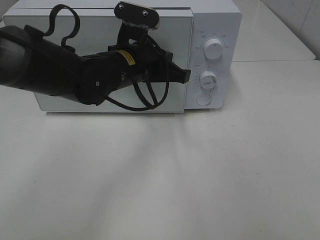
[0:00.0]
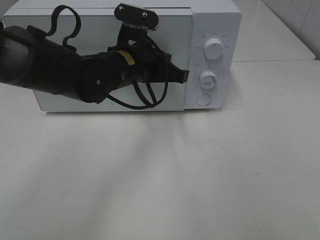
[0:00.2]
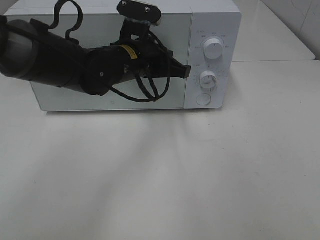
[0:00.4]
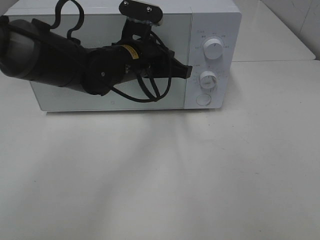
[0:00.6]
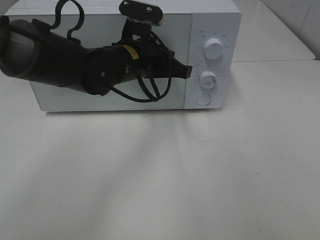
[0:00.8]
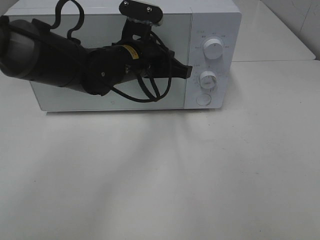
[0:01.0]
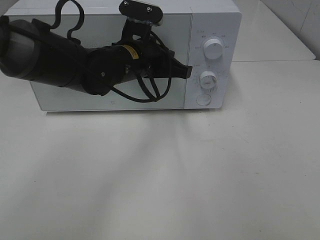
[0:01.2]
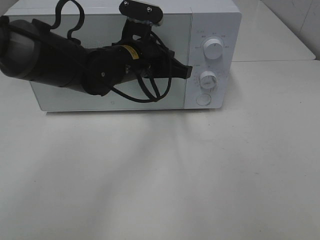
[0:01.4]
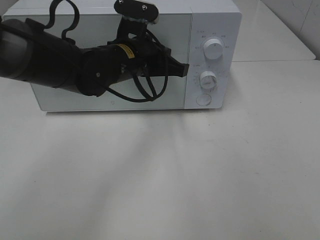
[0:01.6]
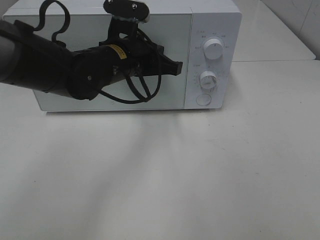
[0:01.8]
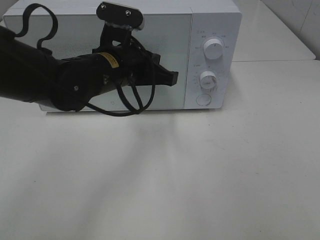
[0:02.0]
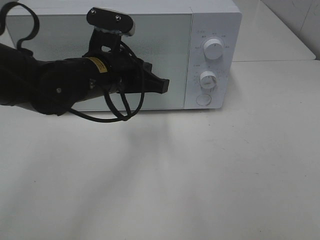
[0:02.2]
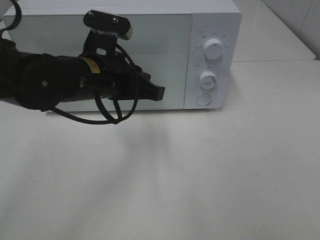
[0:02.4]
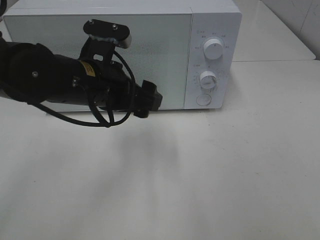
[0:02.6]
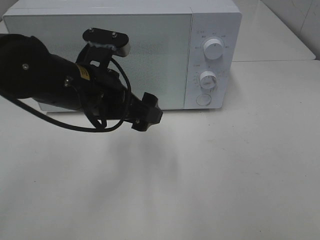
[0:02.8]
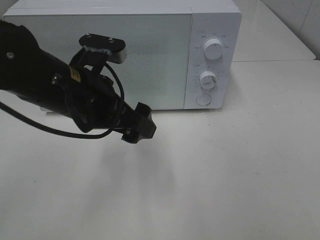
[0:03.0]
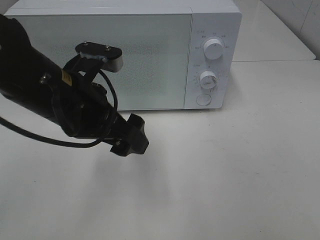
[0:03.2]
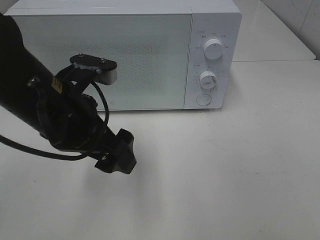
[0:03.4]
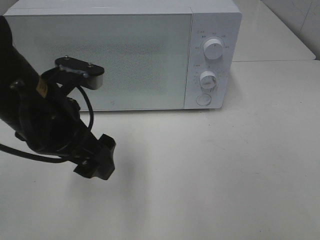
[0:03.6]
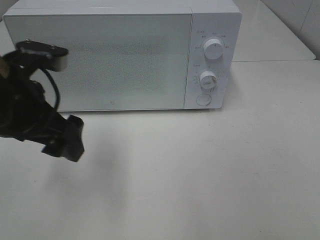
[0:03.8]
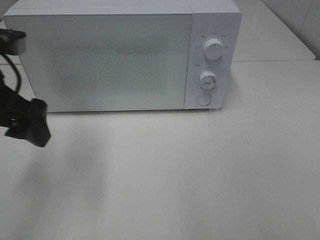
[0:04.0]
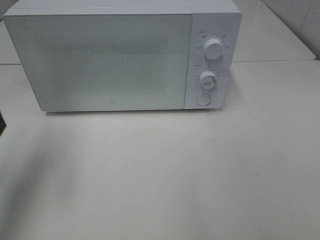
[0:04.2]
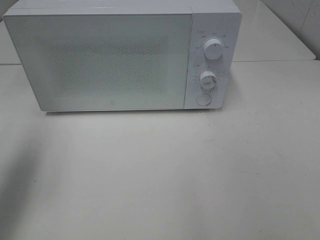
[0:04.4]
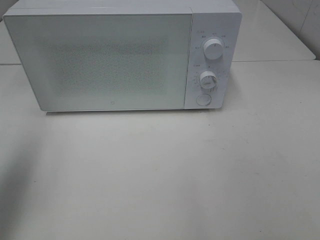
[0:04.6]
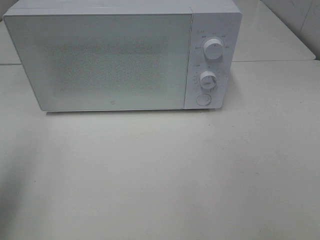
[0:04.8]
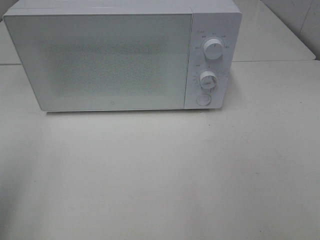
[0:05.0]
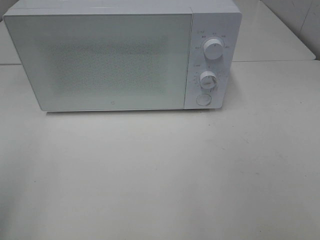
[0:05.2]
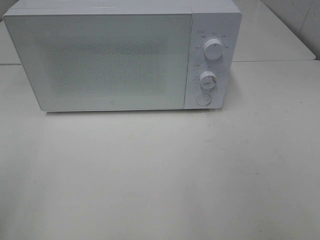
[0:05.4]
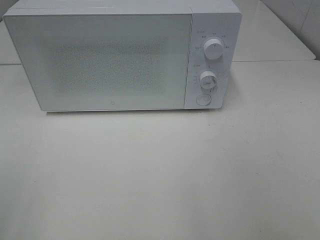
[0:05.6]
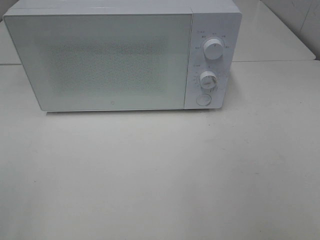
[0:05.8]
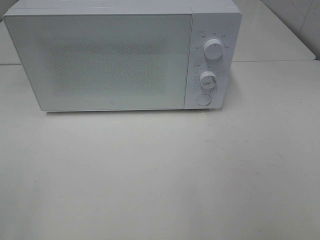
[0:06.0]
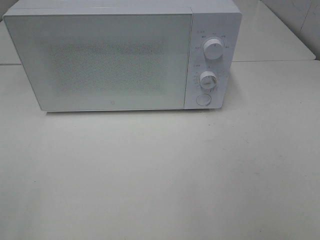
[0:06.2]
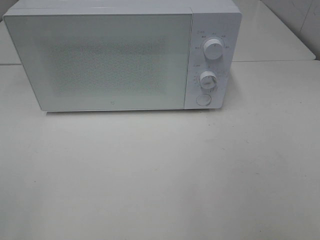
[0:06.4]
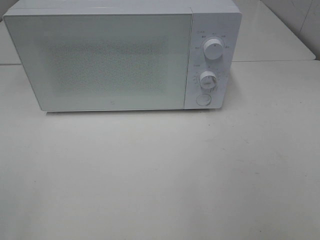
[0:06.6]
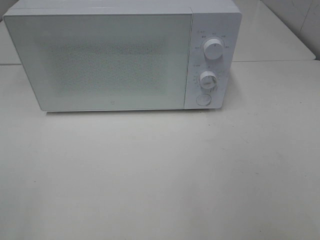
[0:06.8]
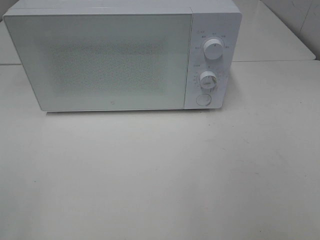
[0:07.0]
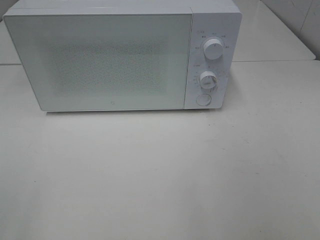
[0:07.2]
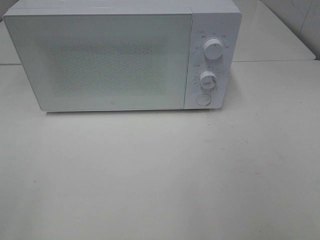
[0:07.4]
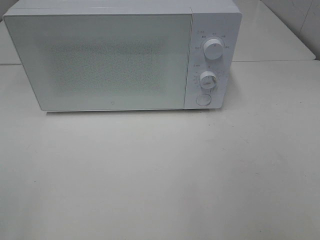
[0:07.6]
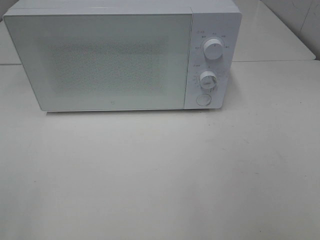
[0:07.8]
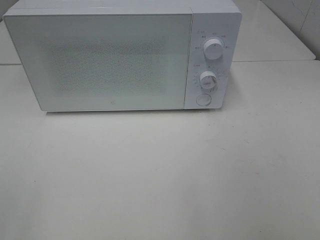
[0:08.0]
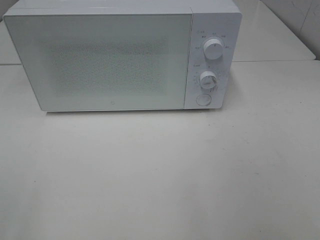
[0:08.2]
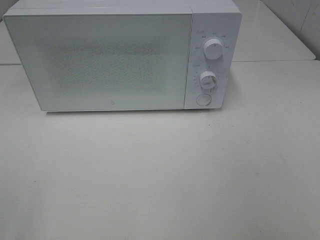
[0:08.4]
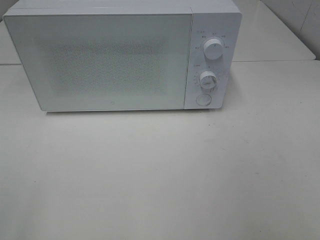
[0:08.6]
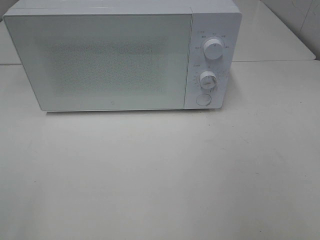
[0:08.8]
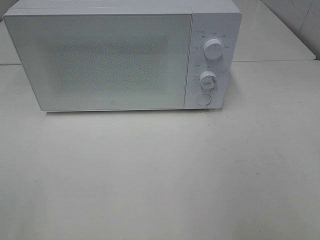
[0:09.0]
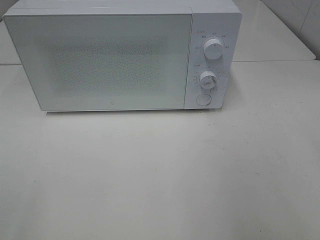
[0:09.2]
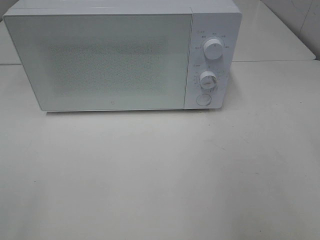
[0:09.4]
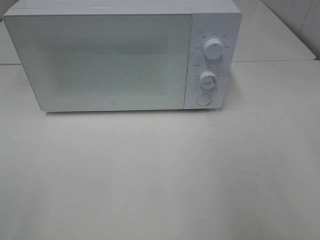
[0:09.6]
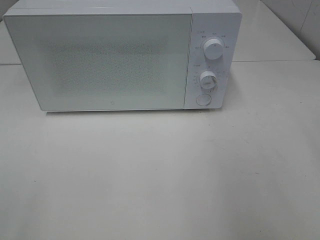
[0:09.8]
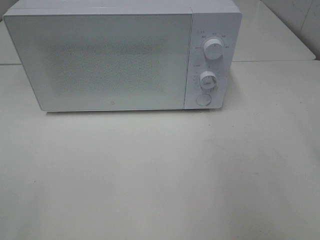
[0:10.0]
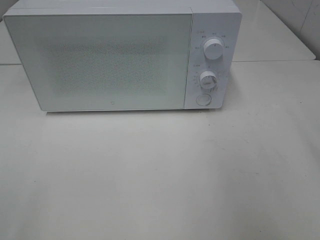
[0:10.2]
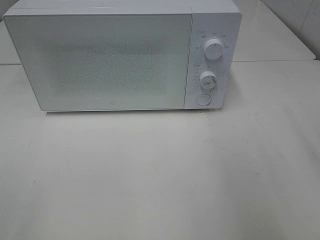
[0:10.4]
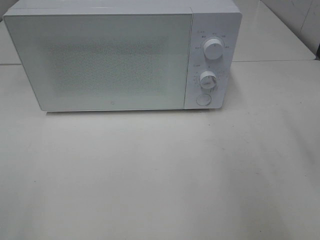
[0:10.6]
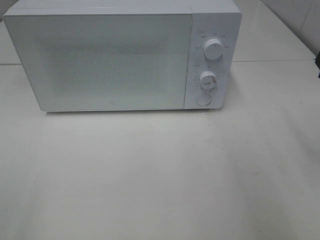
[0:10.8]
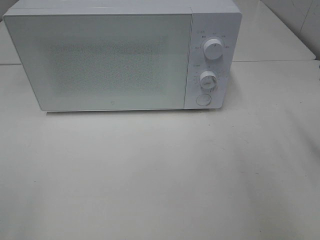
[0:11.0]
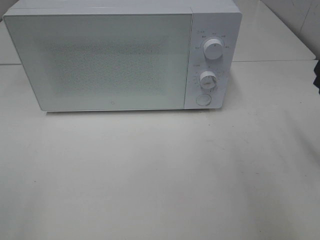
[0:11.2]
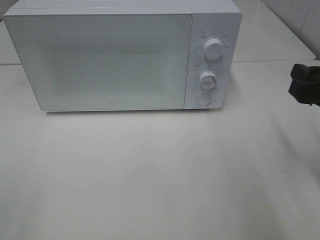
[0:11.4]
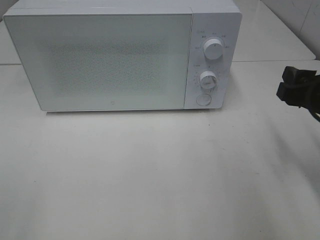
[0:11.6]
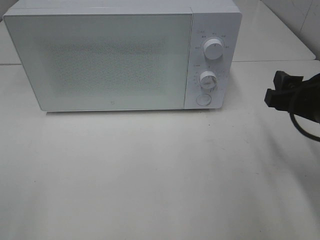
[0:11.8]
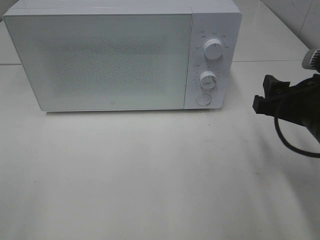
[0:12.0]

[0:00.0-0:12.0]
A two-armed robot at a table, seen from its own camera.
Task of the whole recording: Heat Sandwich.
0:00.0 to 0:01.6: The grippers move only a little.
0:01.6 to 0:03.0: The left gripper heads backward and to the left, covering approximately 10 cm, and opens up.
0:03.0 to 0:04.4: The left gripper goes approximately 20 cm to the left and upward.
0:04.4 to 0:06.0: The left gripper shifts roughly 20 cm backward.
0:06.0 to 0:07.6: Both grippers stay about where they are.
0:10.4 to 0:12.0: The right gripper travels downward and to the left by roughly 10 cm.

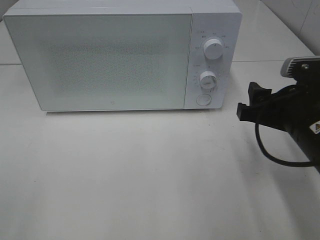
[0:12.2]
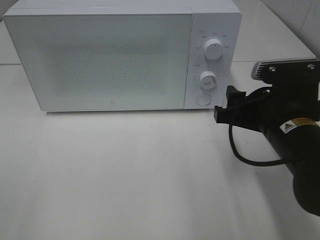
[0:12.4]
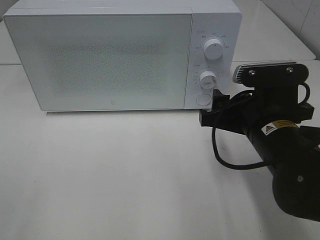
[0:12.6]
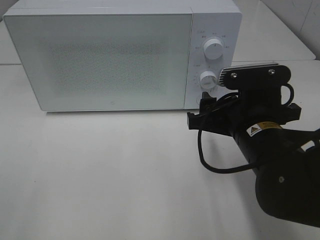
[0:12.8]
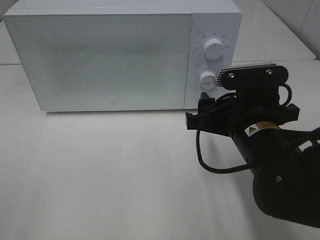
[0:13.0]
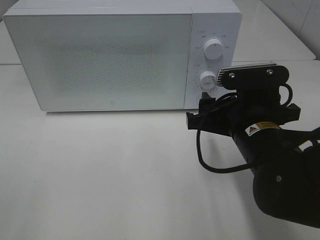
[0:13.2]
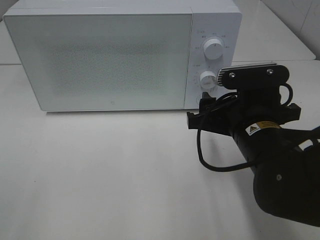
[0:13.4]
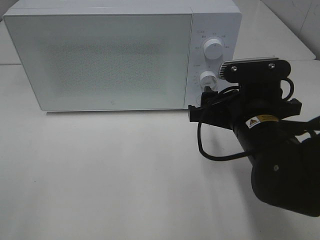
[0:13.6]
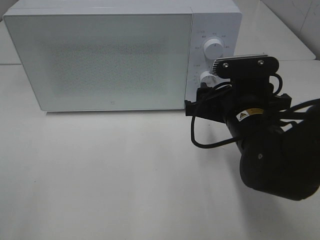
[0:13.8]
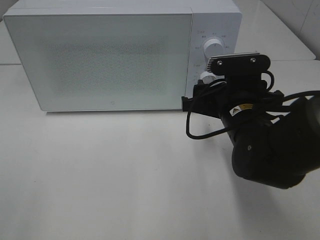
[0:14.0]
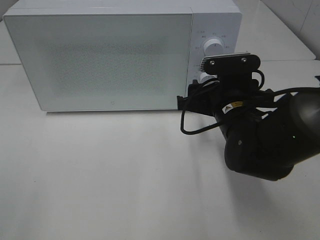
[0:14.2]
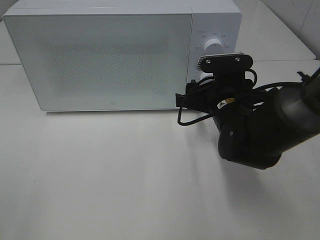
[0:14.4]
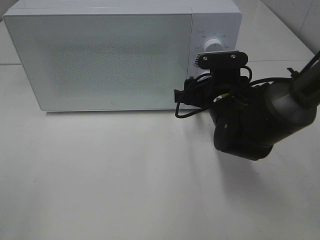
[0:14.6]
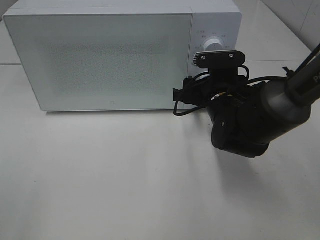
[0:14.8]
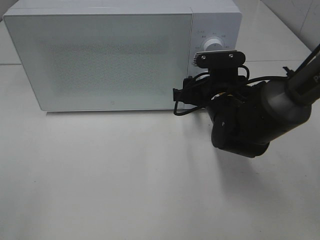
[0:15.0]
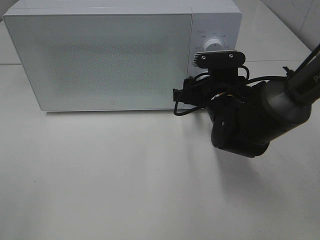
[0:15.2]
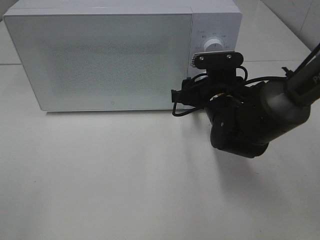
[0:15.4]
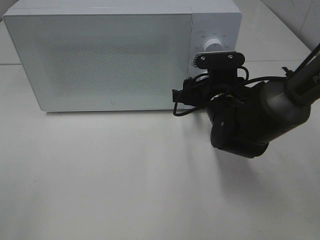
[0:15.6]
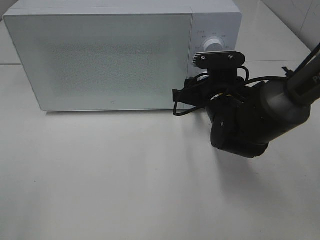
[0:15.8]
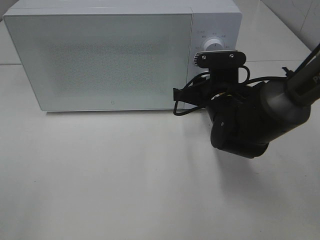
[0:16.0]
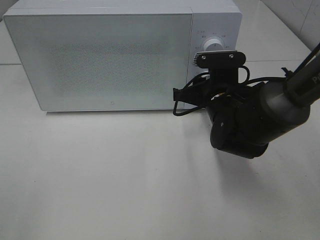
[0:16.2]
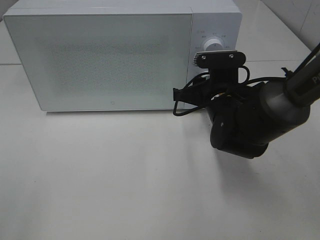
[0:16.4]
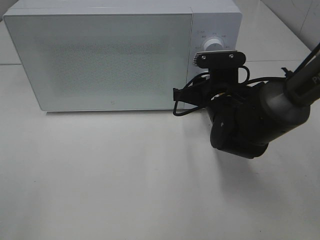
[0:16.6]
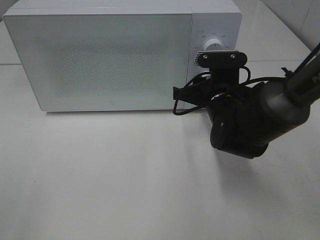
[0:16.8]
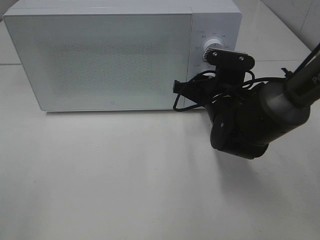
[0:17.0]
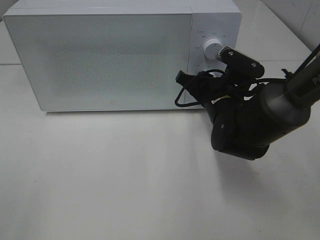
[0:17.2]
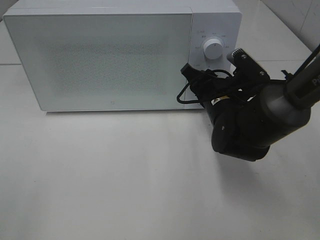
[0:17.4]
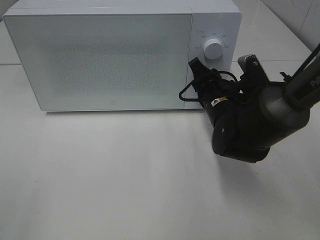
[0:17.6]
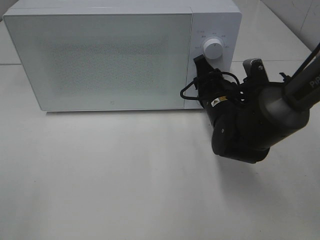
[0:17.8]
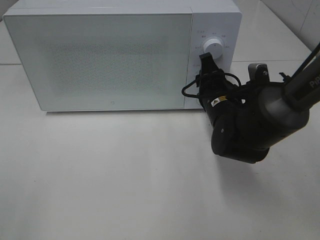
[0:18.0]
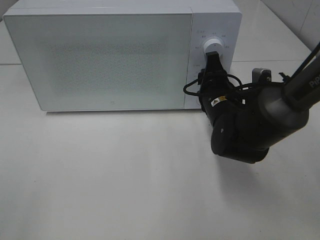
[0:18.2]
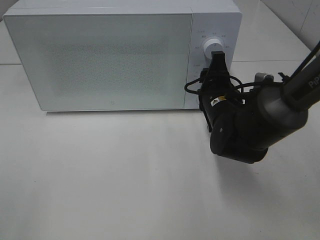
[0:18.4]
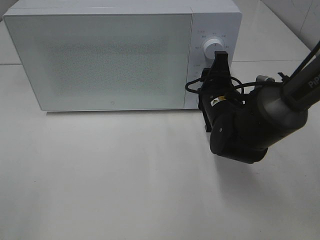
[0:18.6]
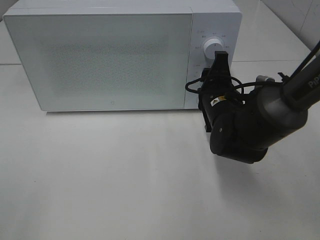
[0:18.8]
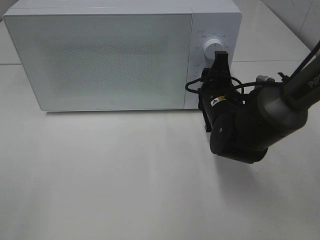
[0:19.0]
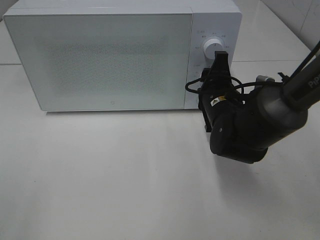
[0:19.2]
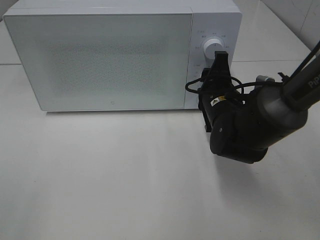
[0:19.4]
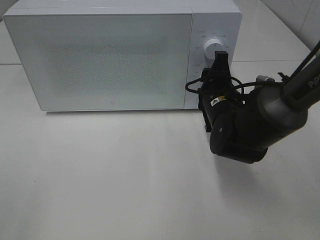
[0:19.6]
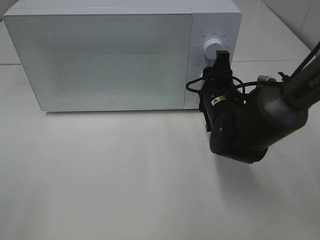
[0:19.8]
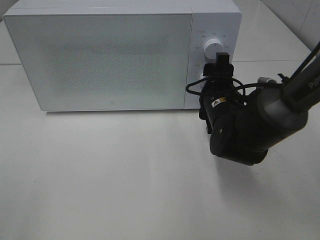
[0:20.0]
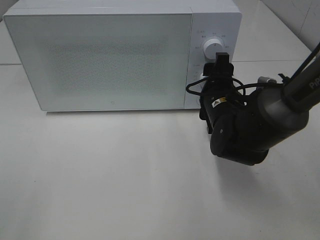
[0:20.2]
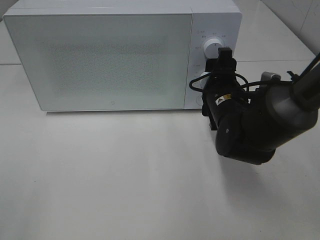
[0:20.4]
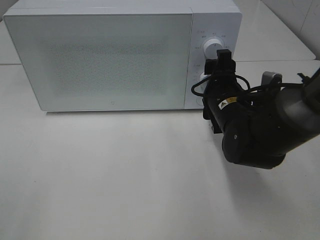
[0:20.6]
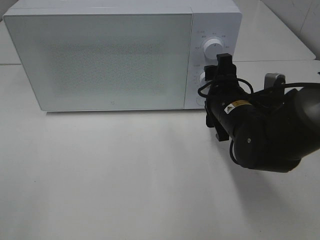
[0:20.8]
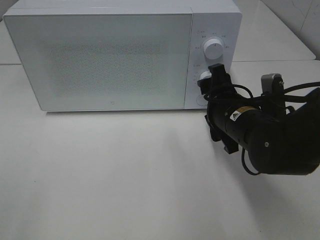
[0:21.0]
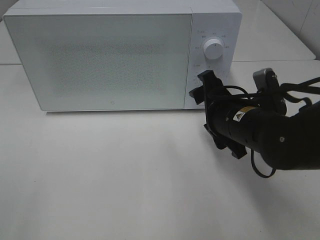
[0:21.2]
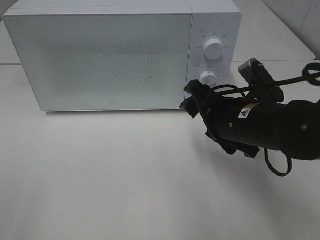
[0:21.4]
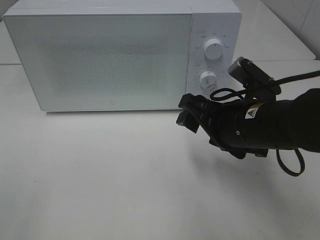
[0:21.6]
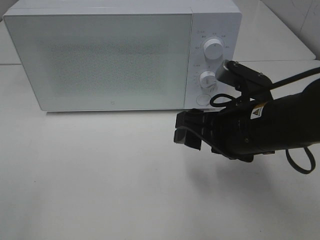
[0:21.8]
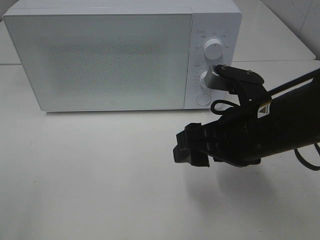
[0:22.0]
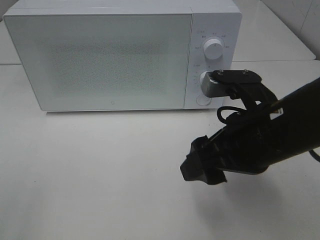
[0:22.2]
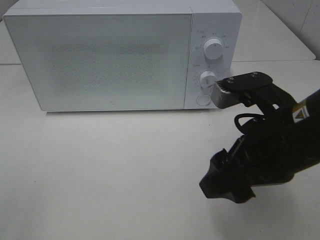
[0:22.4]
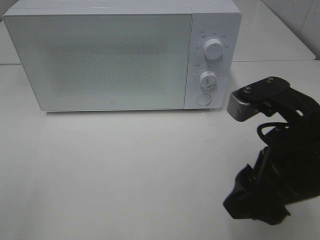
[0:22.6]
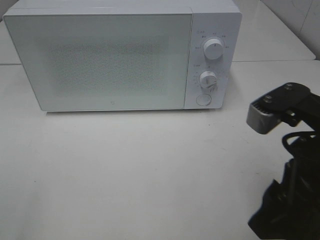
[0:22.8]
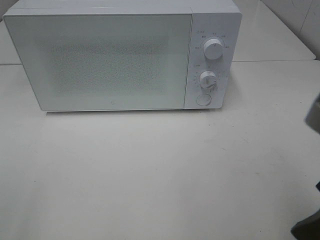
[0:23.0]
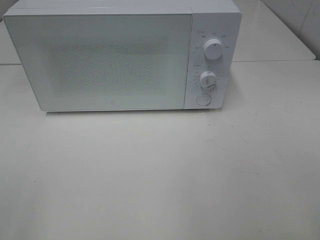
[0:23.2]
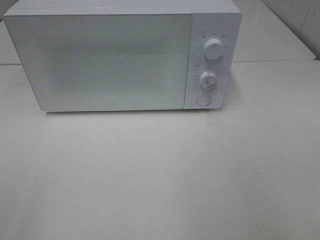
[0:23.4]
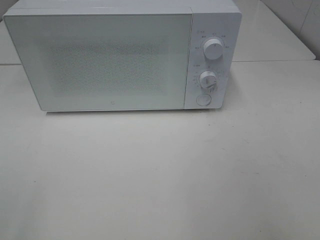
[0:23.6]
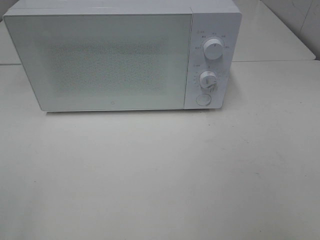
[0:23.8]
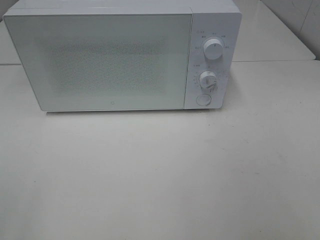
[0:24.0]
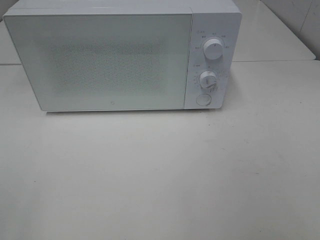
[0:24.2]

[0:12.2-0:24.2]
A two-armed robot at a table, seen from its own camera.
Task of the whole recording: Heat Sandwich.
Step, 0:12.2 to 0:21.0: Right hand: twist timer button.
0:12.2 to 0:13.8: The right gripper travels to the left by some 5 cm.
0:13.8 to 0:15.2: The right gripper travels forward by about 10 cm.
0:15.2 to 0:16.6: Both grippers stay put.
0:18.2 to 0:19.8: The grippers move only a little.
0:19.8 to 0:21.2: The right gripper is displaced backward by roughly 5 cm.
0:21.2 to 0:22.6: The right gripper is displaced backward and upward by some 15 cm.
0:22.6 to 0:24.2: The right gripper goes roughly 20 cm backward and to the right.
